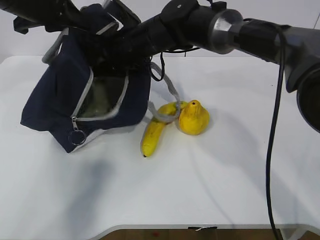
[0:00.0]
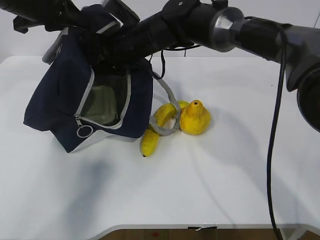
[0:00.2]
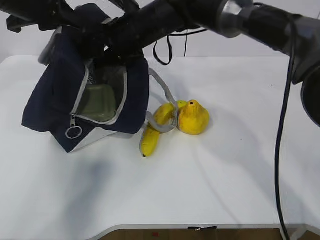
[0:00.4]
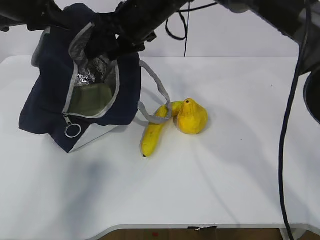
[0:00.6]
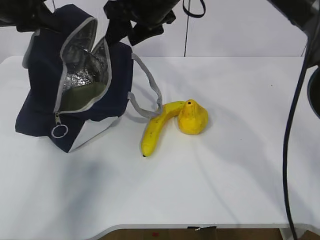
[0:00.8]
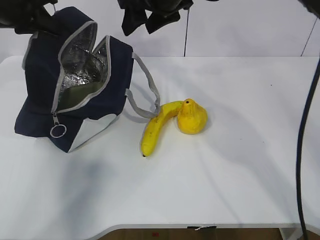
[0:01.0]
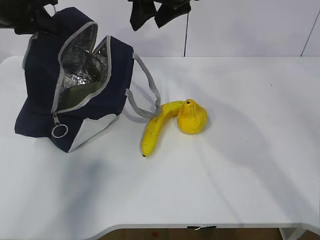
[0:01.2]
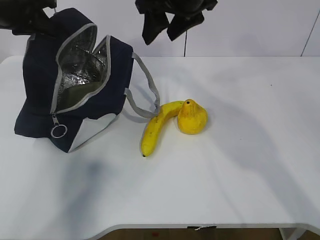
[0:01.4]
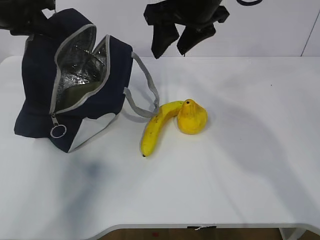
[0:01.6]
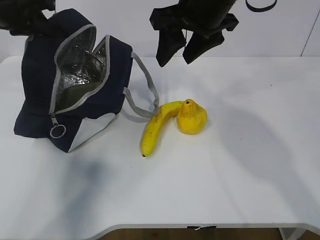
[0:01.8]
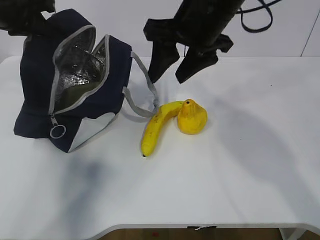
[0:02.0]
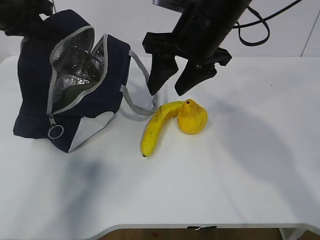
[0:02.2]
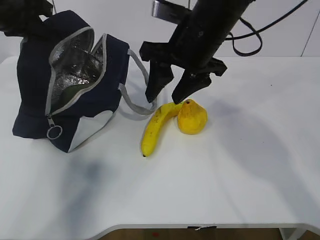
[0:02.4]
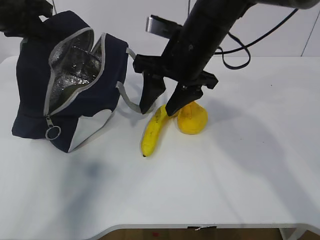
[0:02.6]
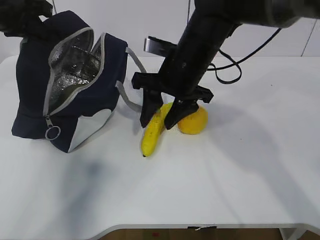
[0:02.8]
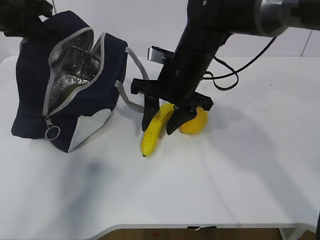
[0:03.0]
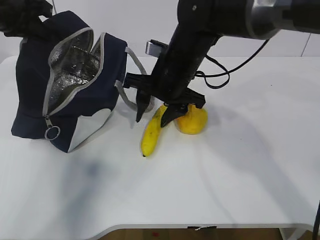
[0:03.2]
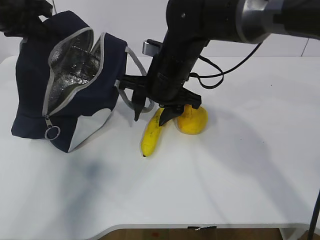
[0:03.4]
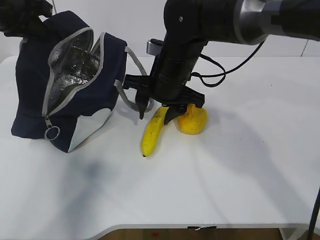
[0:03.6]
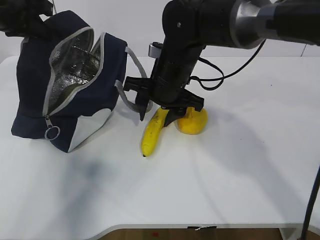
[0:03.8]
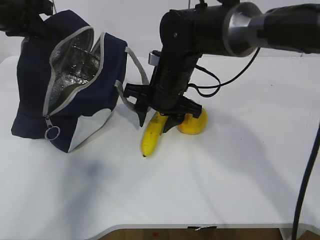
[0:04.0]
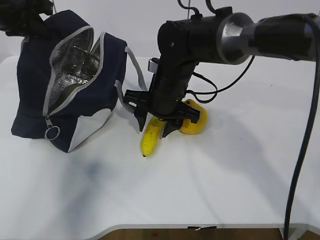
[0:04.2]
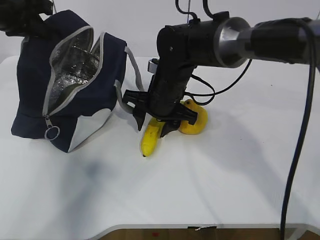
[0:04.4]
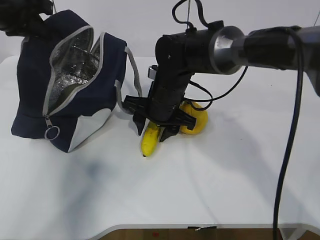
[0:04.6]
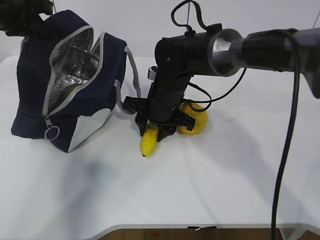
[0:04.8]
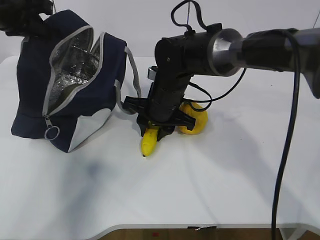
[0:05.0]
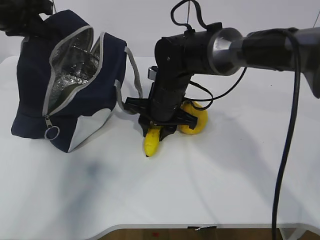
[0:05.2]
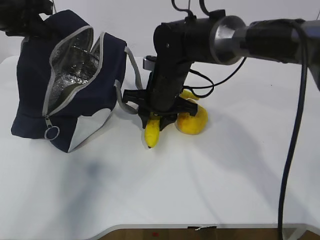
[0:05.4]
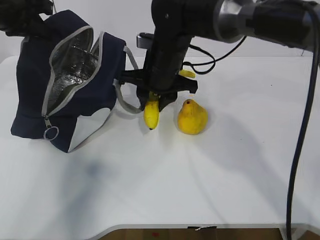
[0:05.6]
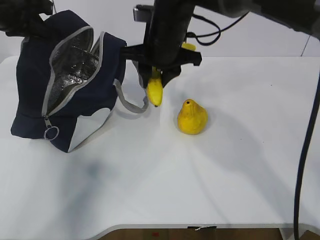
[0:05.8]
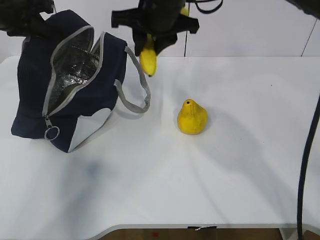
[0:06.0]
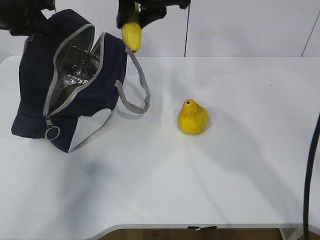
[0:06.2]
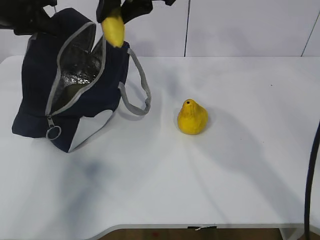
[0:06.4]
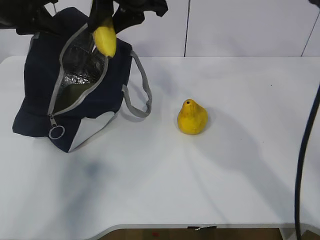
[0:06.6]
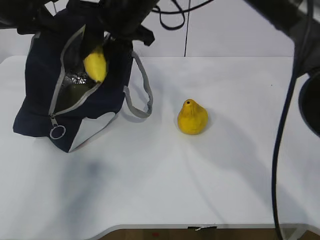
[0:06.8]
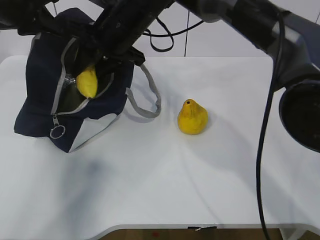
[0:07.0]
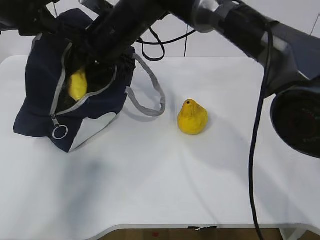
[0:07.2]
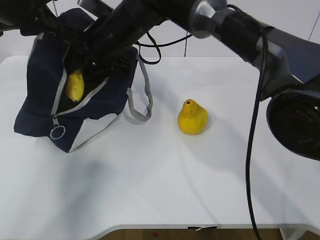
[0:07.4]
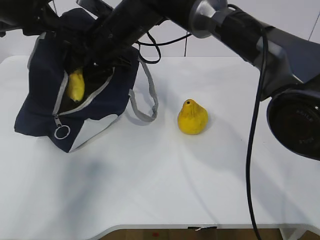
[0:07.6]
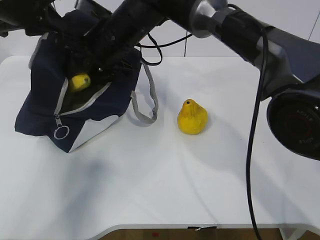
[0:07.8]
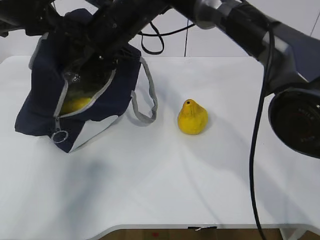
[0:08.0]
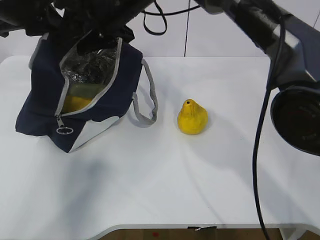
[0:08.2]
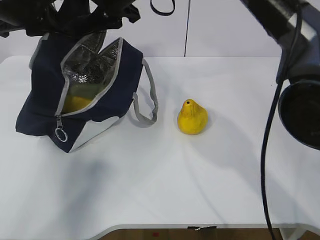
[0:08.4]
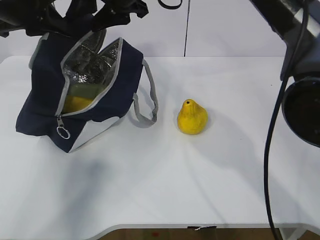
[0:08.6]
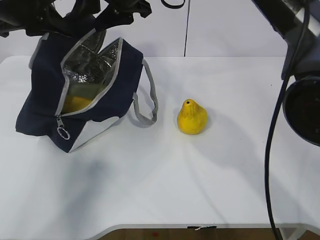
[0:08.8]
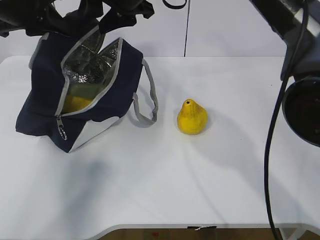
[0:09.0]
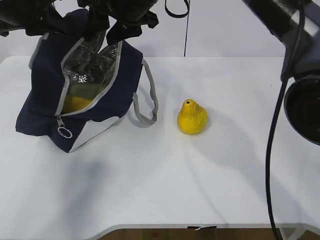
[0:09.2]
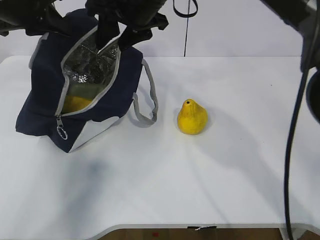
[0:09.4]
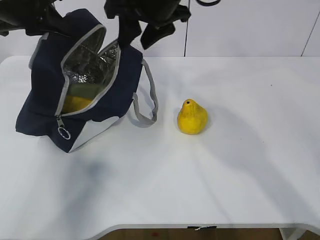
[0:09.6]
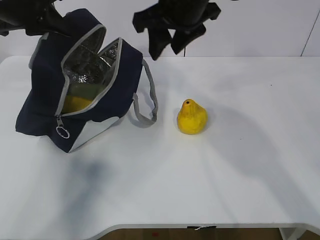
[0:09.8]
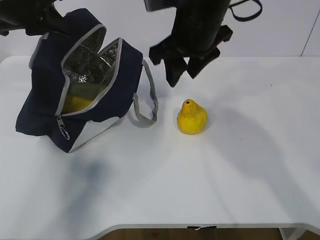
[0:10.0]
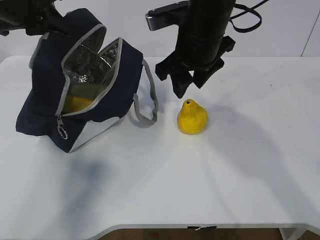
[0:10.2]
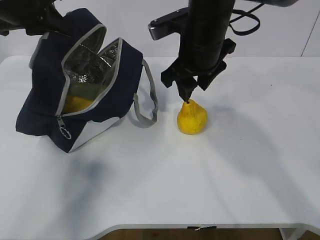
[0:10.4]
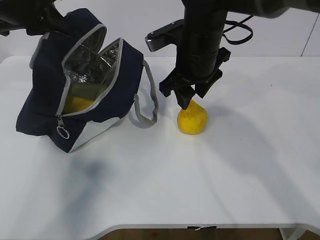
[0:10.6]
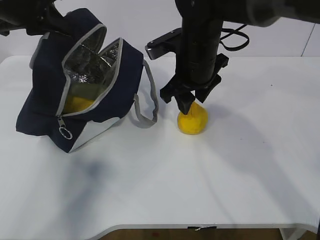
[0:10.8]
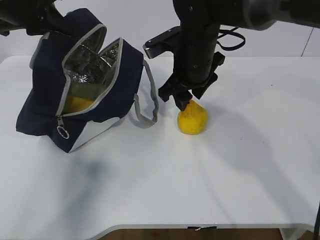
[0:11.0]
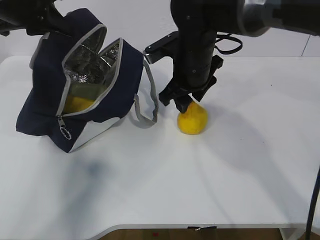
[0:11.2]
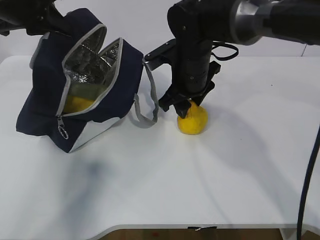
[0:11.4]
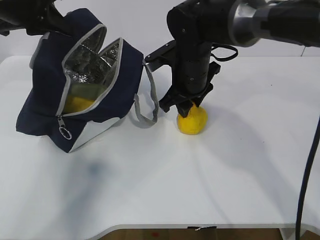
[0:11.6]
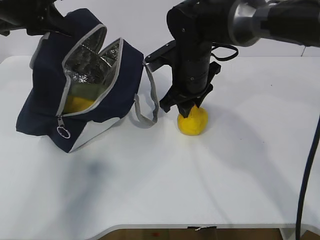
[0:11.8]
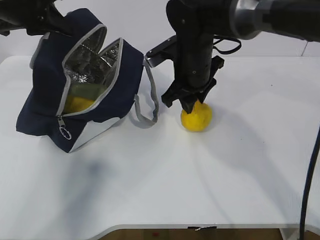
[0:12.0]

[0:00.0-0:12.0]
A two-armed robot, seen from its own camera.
Step, 1.6 to 4.8 s: Grasp the banana with the right gripper.
Step, 5.0 to 8.4 s: Place the banana into the package with the right gripper.
Step, 8.6 to 11.6 s: Grasp the pear with the right gripper.
0.0 to 1.6 s: The left gripper shifts by approximately 5 cm. Meanwhile the right gripper heads upward, to the right and backward, covering approximately 15 cm.
1.6 to 3.0 s: The right gripper heads downward, covering approximately 10 cm.
3.0 to 4.4 s: The right gripper goes about 5 cm downward.
4.4 to 6.0 s: The right gripper shifts roughly 15 cm upward.
6.0 to 7.6 s: The right gripper goes roughly 10 cm to the left and downward.
7.6 to 9.0 s: The right gripper goes roughly 10 cm upward.
9.0 to 10.4 s: The right gripper travels to the right and downward by roughly 10 cm.
10.4 to 12.0 s: The right gripper is displaced downward by roughly 5 cm.

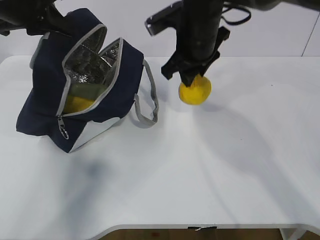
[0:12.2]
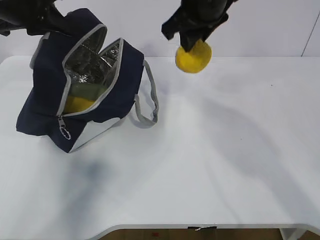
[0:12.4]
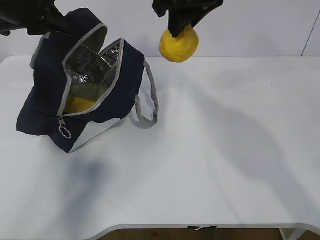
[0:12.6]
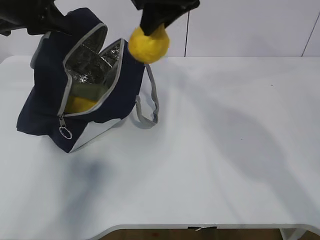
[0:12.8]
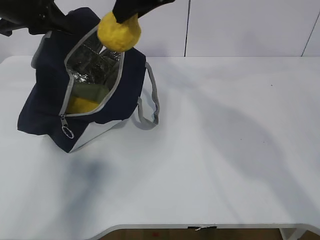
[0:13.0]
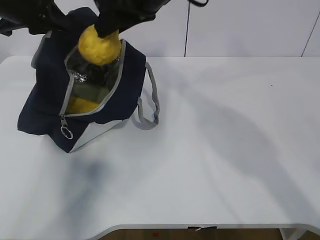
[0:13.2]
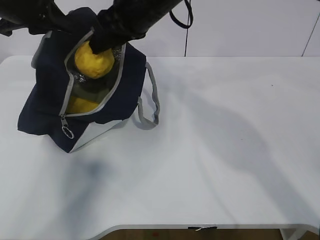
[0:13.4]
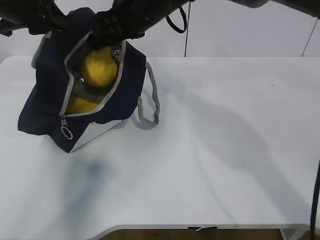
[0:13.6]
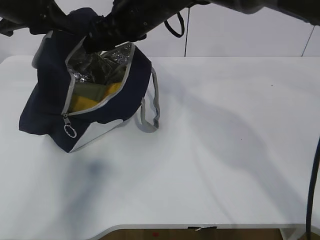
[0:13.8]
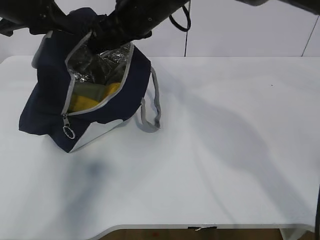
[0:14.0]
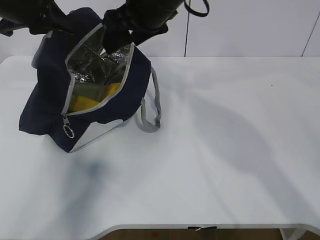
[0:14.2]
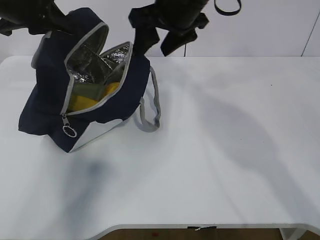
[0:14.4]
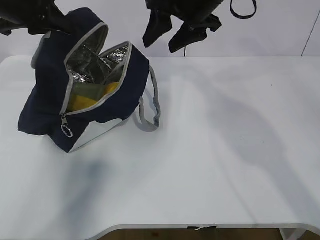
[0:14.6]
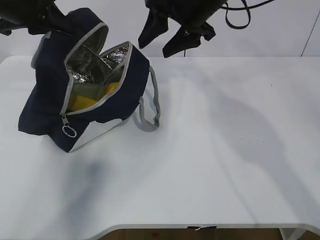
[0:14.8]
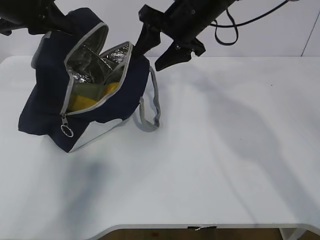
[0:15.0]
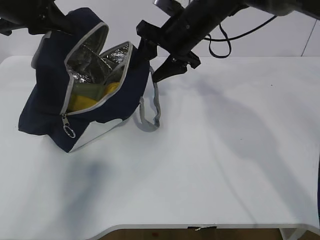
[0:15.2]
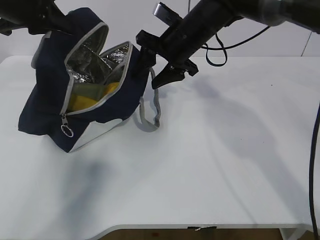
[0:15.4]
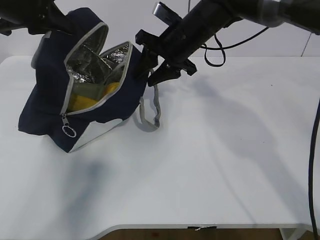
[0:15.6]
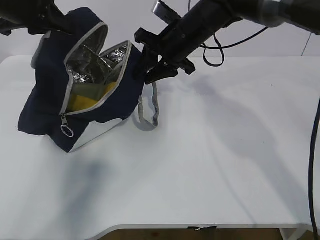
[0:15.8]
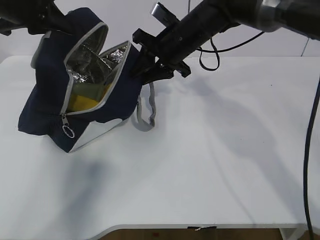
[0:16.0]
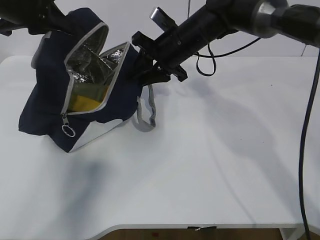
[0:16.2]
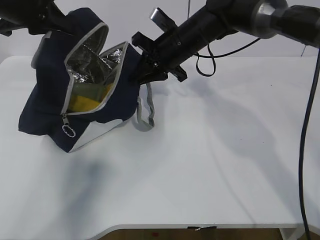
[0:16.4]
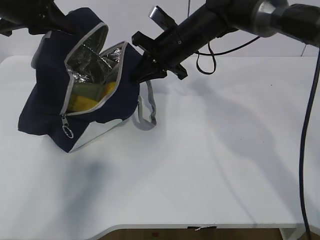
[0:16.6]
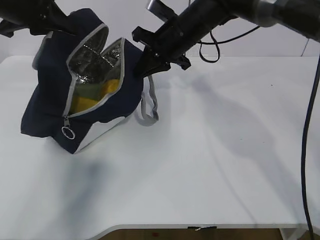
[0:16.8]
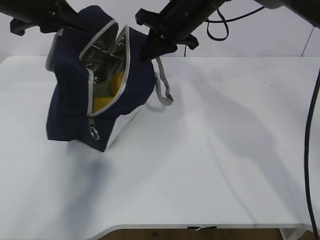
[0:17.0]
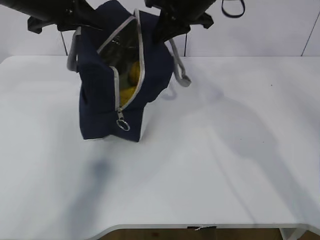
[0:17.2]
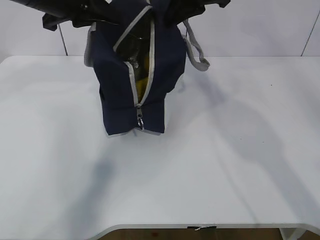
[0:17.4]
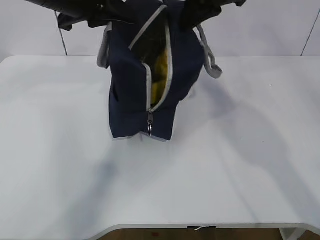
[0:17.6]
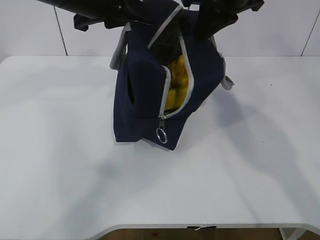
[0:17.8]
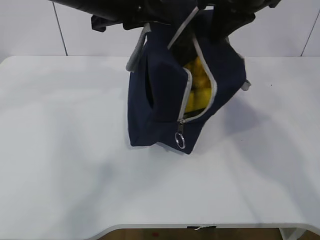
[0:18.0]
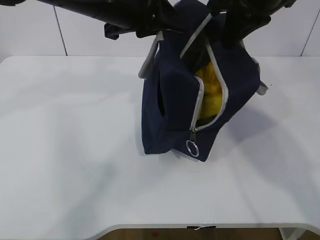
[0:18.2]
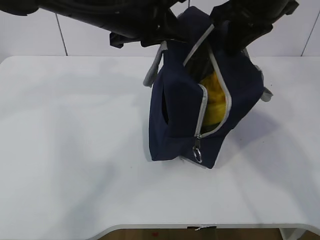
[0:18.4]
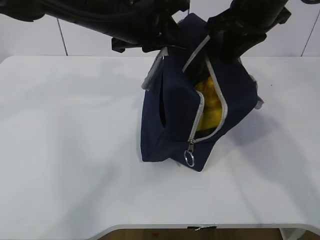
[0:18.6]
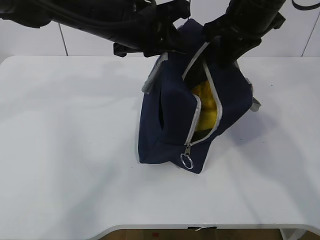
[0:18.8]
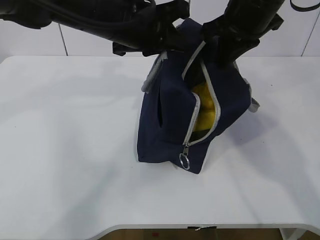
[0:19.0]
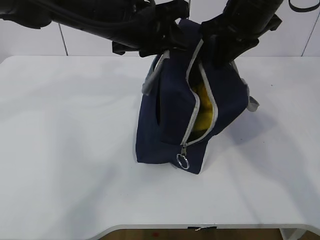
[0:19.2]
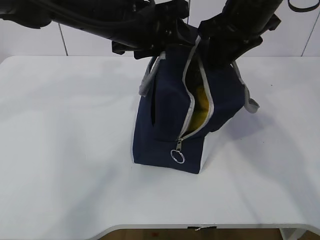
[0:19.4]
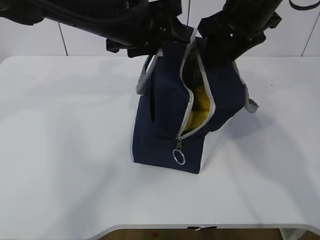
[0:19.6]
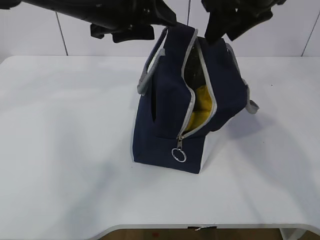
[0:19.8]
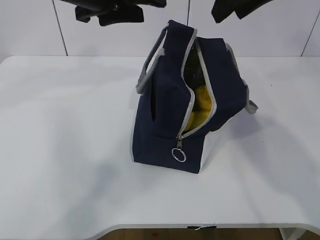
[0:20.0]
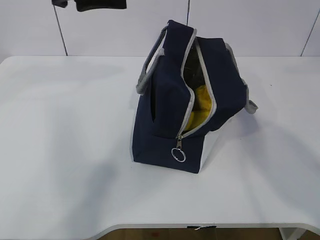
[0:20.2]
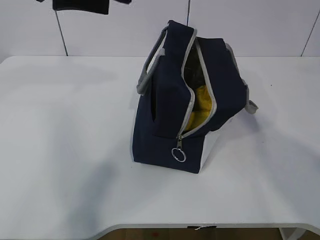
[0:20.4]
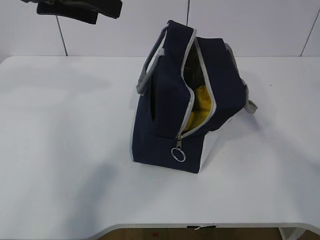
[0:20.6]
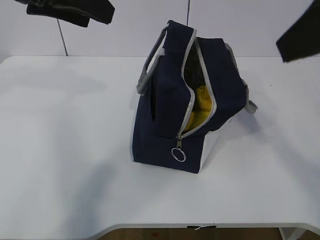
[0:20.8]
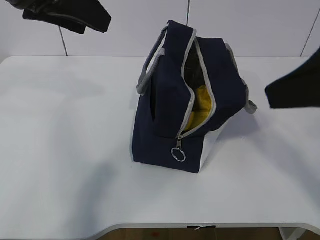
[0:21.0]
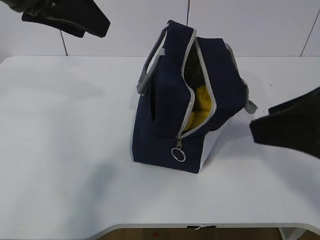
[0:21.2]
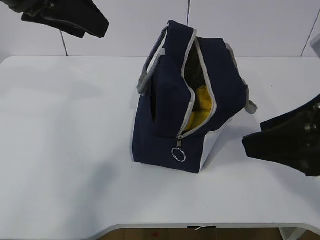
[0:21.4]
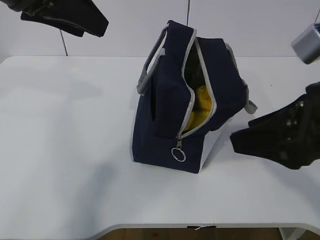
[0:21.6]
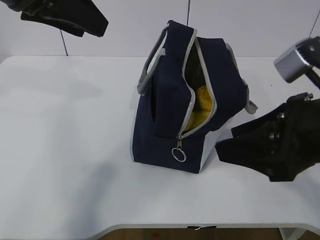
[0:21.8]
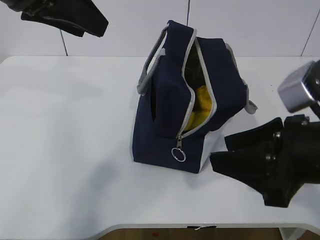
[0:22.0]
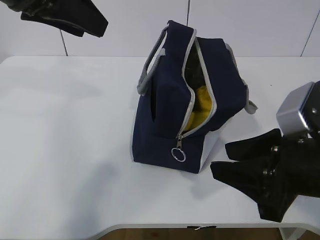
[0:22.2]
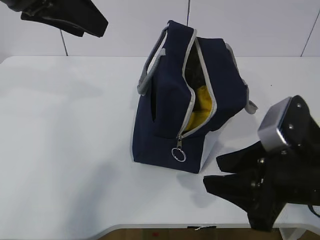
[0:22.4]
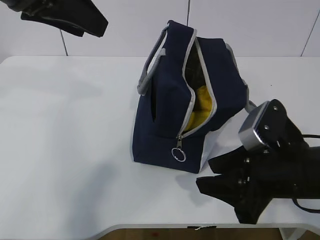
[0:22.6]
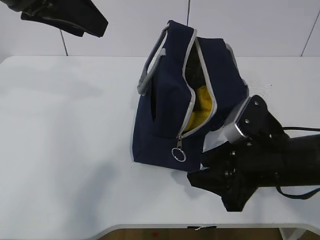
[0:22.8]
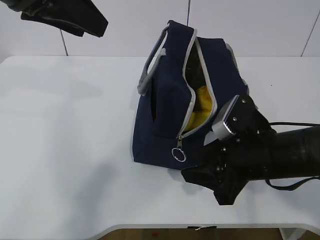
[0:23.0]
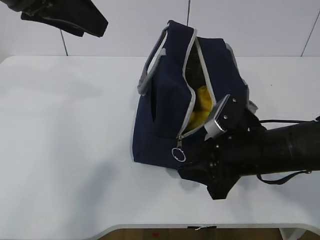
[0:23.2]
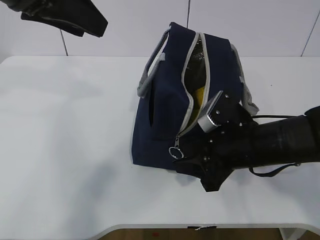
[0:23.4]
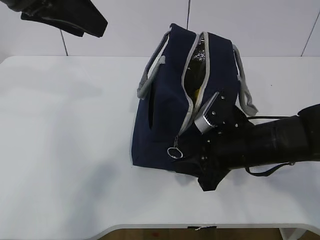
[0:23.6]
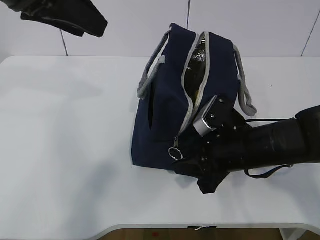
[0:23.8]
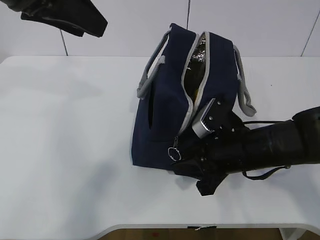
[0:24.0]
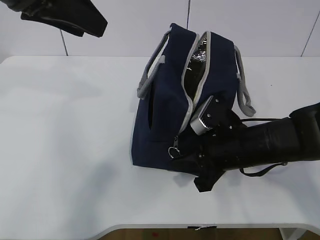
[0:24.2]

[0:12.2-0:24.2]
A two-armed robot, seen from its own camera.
Step, 12.2 to 14.2 s: Place the pear into the package with the right gripper.
12.2 to 13.8 s: The right gripper travels to the left by about 10 cm, travels upward and back again, approximately 10 cm each way, and opens.
13.8 to 15.2 s: The right gripper travels to the right by approximately 10 cm.
15.2 to 16.6 s: The right gripper closes up.
16.6 to 18.2 s: The left gripper is displaced to the right by about 15 cm. Meanwhile the right gripper goes roughly 20 cm upward, backward and to the right.
18.2 to 19.8 s: The left gripper opens. The right gripper opens.
19.8 to 21.2 s: The left gripper shifts about 10 cm to the left, backward and upward. The right gripper travels backward by about 20 cm.
21.2 to 22.6 s: The right gripper goes approximately 15 cm downward.
22.6 to 24.2 s: The right gripper heads forward, covering approximately 10 cm, and closes.
